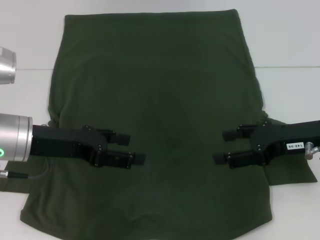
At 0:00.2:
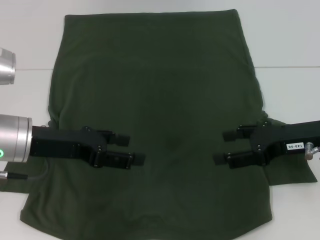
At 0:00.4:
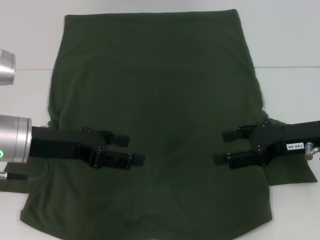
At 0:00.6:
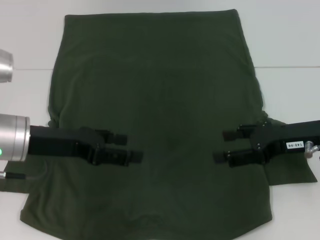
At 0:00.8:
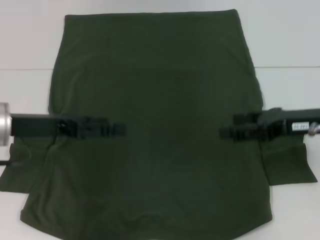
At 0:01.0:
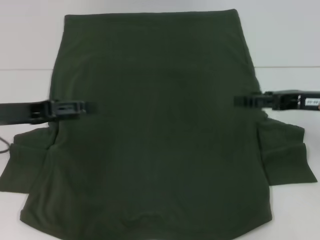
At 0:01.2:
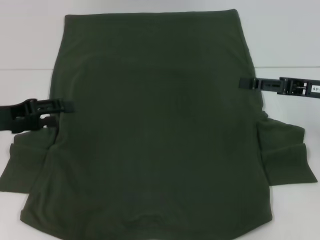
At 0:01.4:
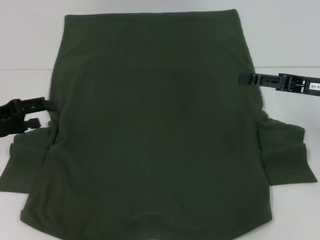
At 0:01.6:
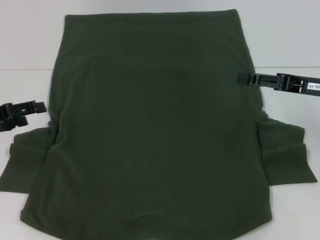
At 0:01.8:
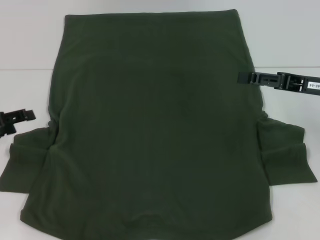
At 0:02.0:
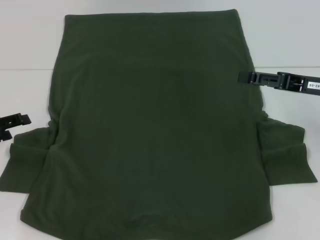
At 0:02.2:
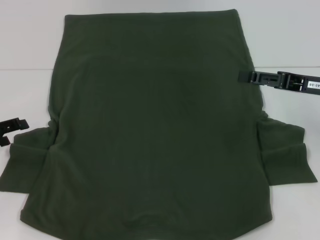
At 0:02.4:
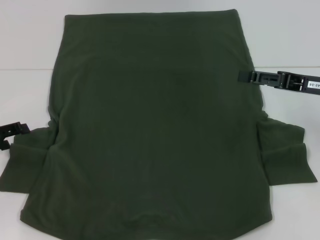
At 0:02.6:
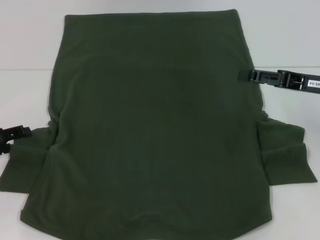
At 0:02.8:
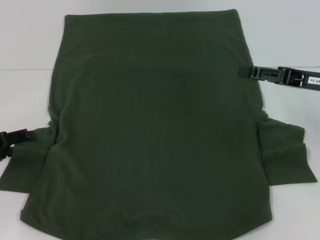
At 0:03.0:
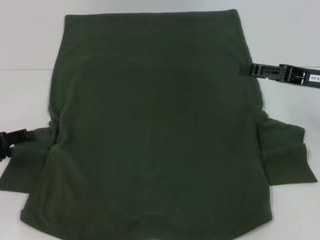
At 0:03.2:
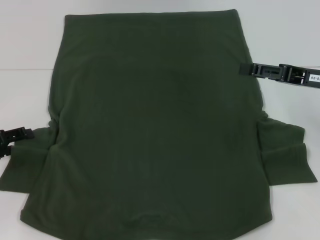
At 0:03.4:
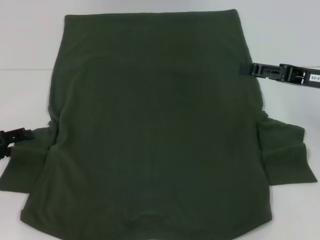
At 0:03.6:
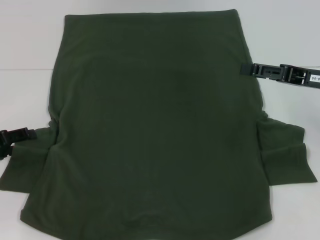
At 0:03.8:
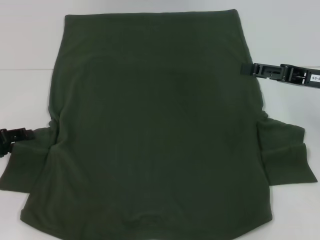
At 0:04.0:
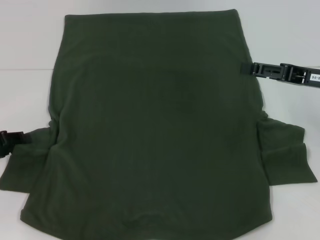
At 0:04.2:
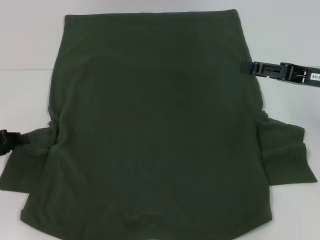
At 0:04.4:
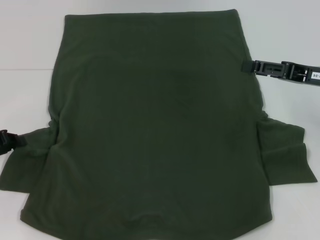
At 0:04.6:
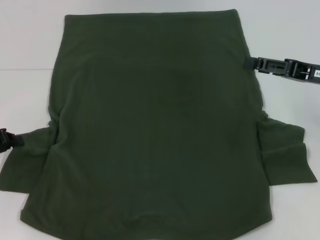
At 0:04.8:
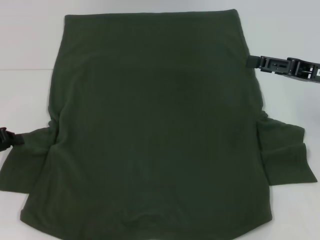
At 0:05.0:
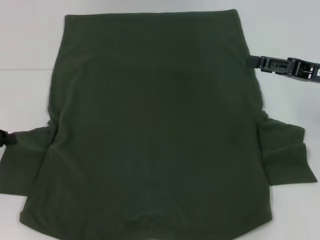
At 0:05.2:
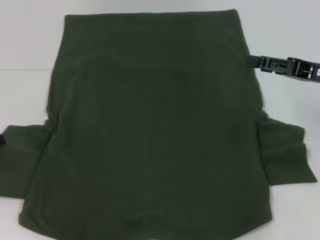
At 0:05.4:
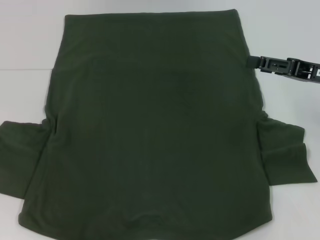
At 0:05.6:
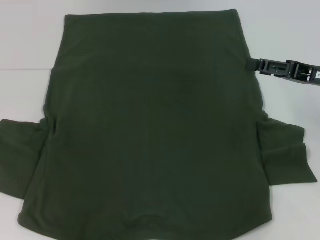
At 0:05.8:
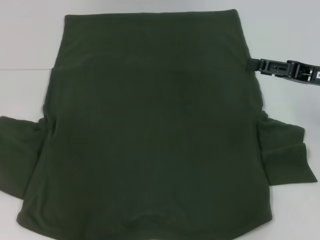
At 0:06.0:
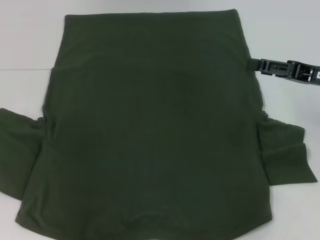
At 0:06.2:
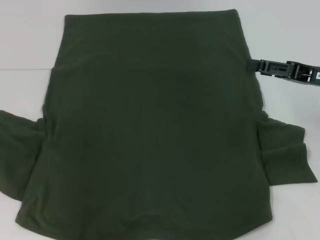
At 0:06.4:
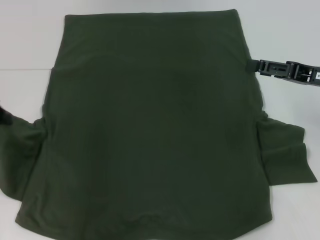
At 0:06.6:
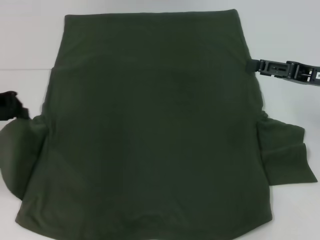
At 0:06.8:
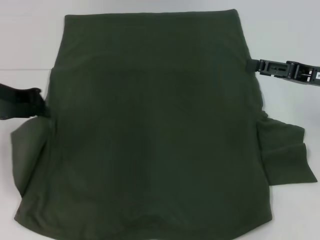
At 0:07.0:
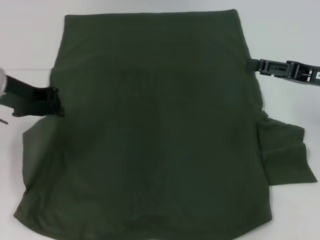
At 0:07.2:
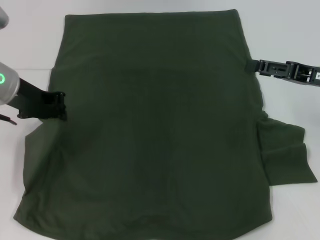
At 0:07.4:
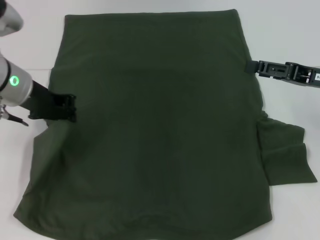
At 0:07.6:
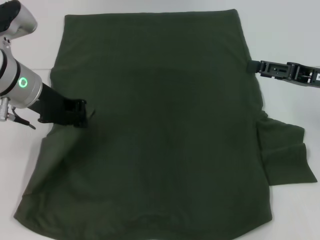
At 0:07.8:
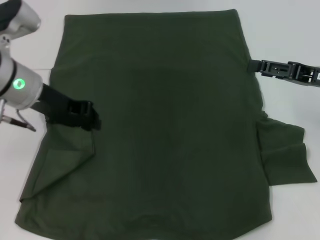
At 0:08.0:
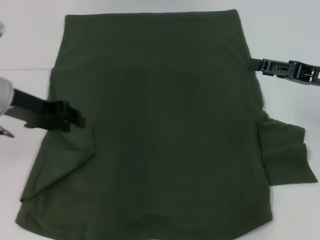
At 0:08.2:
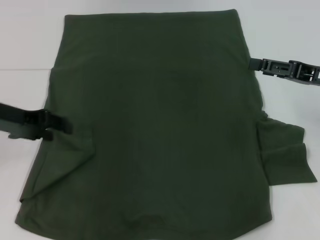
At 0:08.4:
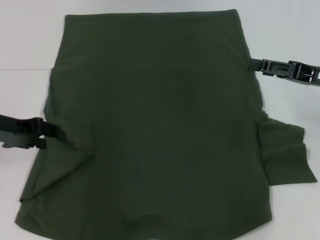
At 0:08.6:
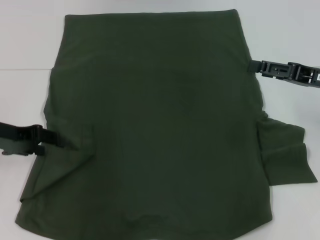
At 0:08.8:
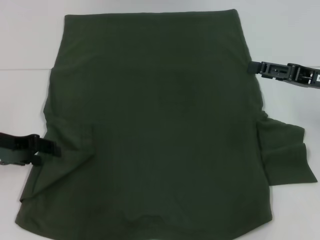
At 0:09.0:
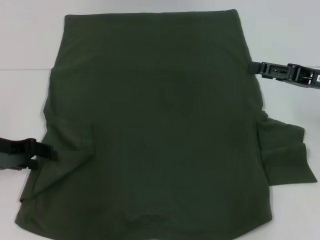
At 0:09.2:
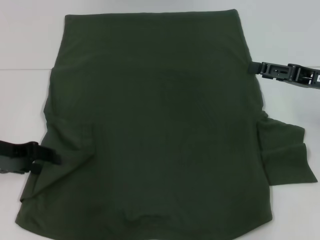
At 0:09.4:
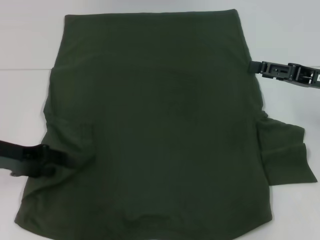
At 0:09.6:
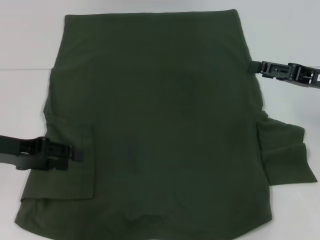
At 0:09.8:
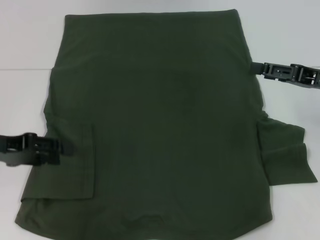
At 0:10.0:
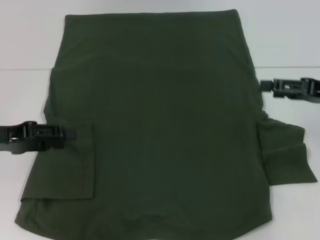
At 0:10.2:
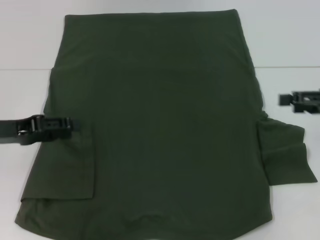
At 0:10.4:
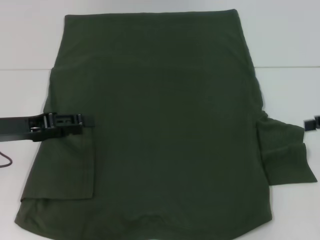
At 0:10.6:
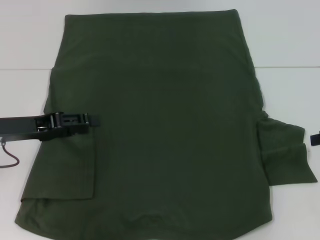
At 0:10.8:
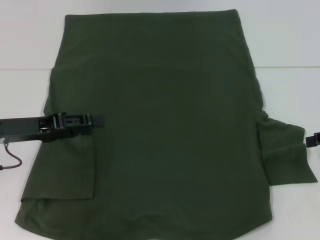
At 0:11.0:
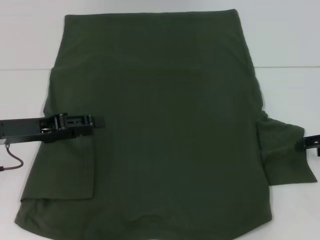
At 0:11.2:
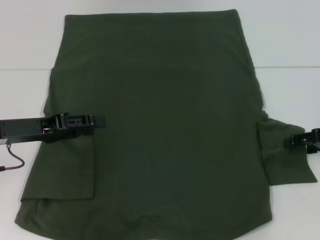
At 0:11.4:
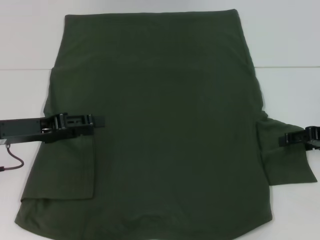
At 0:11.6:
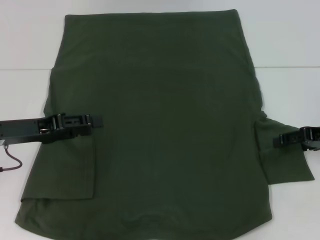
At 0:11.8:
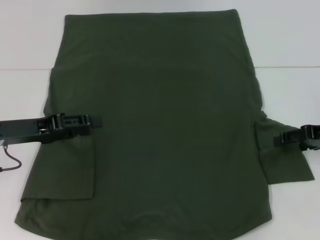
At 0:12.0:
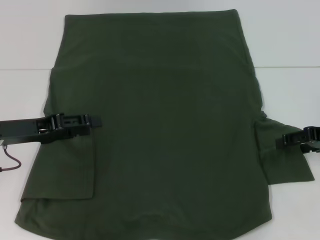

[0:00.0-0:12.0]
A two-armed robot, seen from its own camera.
Step, 0:00.0 to 0:09.8: Fold the bottom left sleeve with your left hand.
0:00.0 to 0:01.6: The left gripper is displaced to the left by approximately 10 cm. The right gripper ends up roughly 5 cm from where it was.
0:01.6 to 0:03.0: There are only small adjustments of the grippers.
0:04.4 to 0:06.0: The left gripper heads upward, covering approximately 5 cm, and closes.
0:06.0 to 0:07.6: The left gripper travels to the right by roughly 15 cm.
0:07.6 to 0:09.0: The left gripper heads to the left, downward and backward, covering roughly 15 cm, and opens.
0:09.0 to 0:10.4: The right gripper travels to the right by about 5 cm.
0:10.4 to 0:12.0: The right gripper ends up roughly 5 cm from where it was.

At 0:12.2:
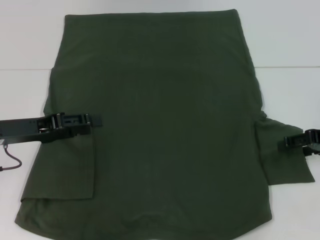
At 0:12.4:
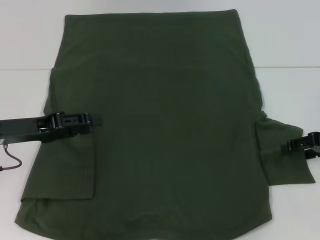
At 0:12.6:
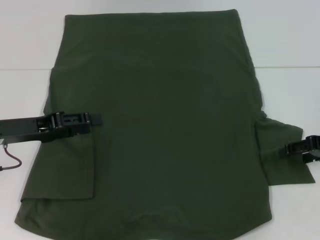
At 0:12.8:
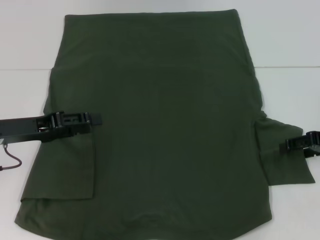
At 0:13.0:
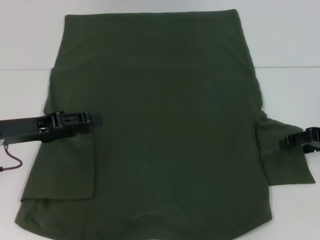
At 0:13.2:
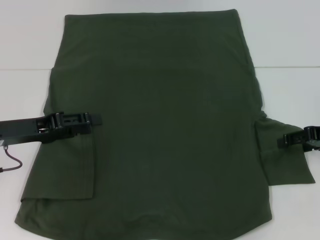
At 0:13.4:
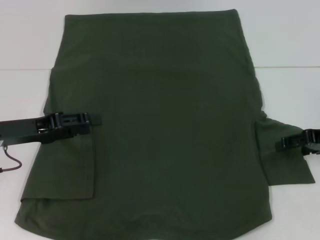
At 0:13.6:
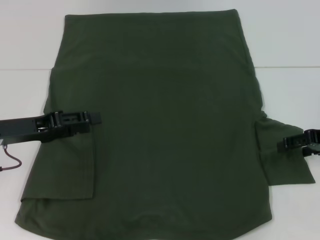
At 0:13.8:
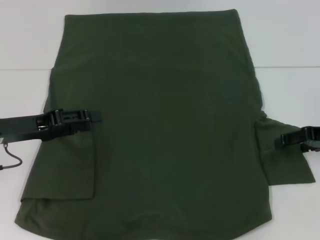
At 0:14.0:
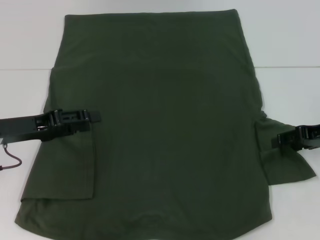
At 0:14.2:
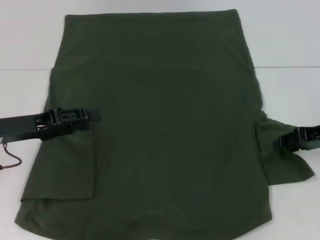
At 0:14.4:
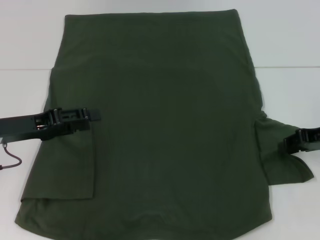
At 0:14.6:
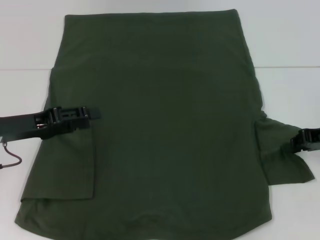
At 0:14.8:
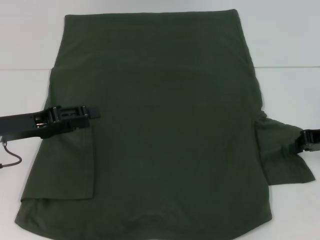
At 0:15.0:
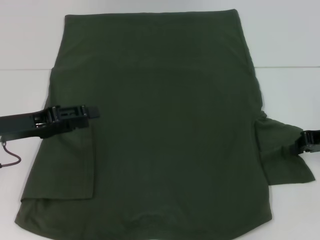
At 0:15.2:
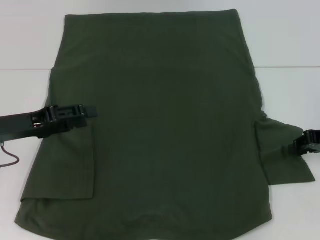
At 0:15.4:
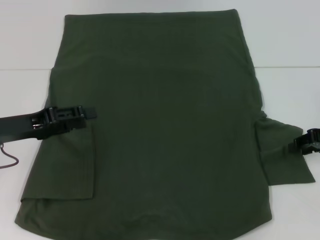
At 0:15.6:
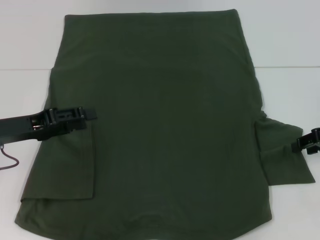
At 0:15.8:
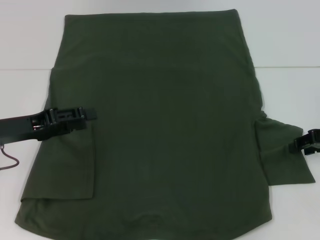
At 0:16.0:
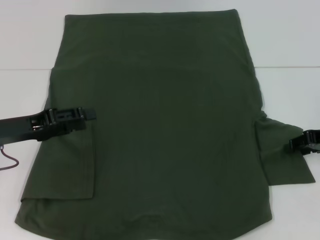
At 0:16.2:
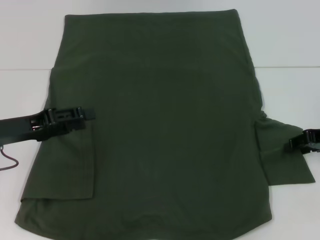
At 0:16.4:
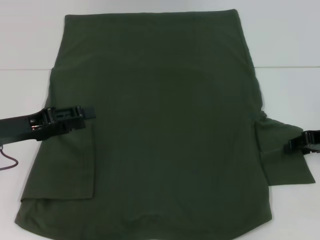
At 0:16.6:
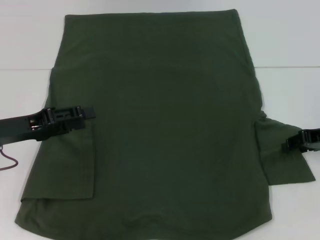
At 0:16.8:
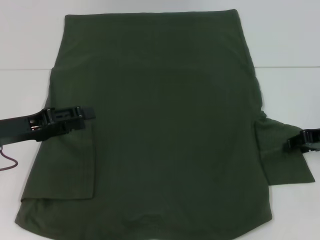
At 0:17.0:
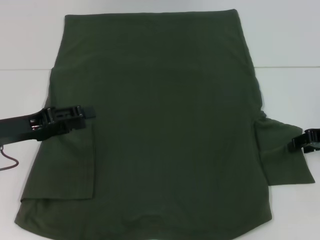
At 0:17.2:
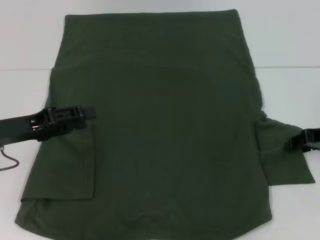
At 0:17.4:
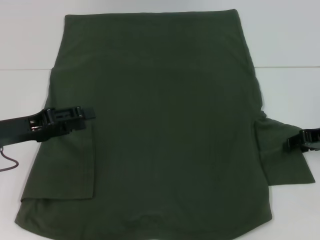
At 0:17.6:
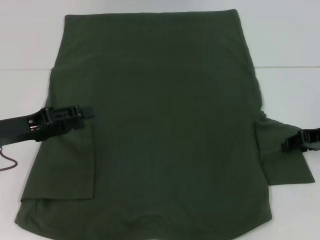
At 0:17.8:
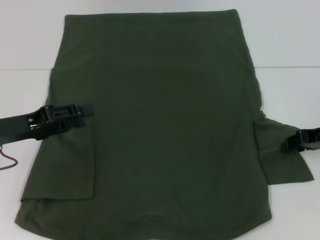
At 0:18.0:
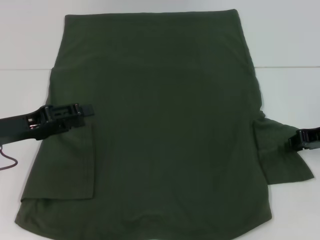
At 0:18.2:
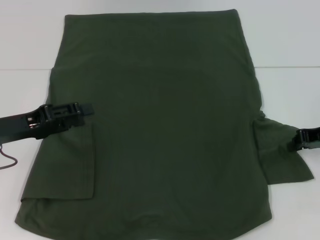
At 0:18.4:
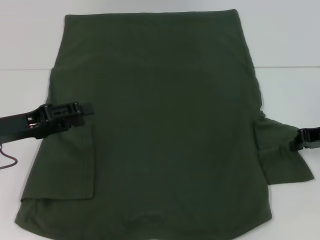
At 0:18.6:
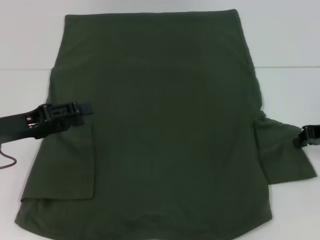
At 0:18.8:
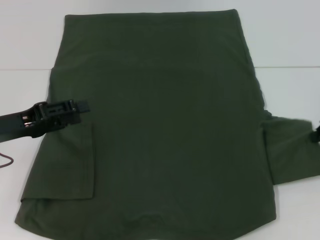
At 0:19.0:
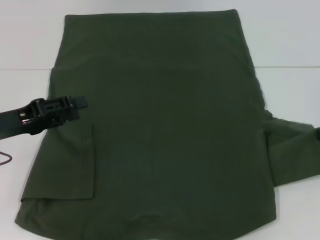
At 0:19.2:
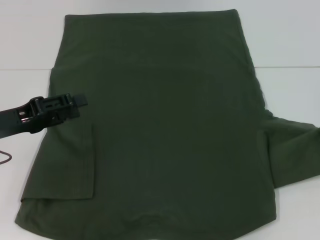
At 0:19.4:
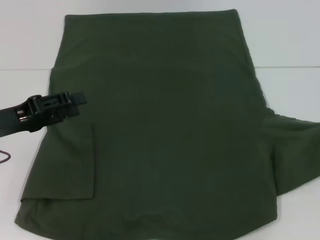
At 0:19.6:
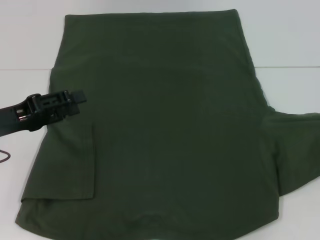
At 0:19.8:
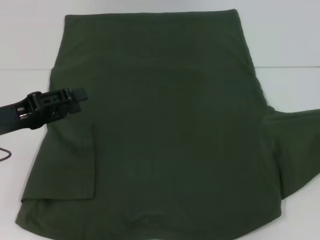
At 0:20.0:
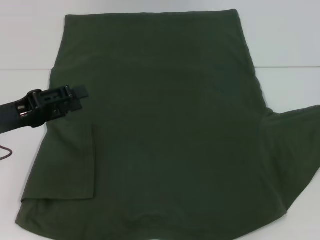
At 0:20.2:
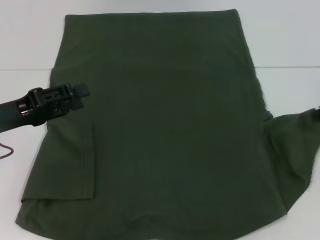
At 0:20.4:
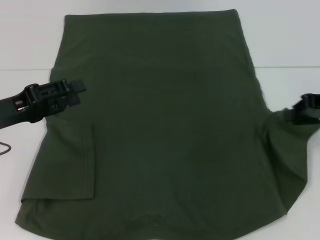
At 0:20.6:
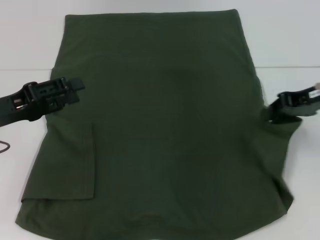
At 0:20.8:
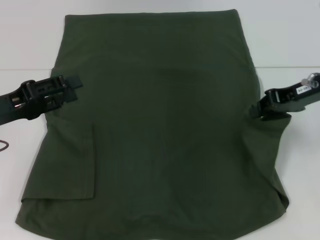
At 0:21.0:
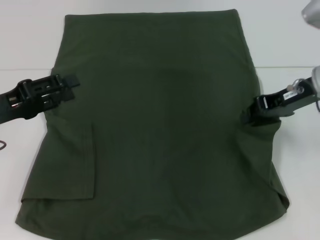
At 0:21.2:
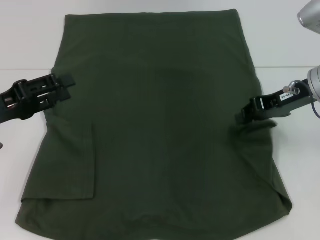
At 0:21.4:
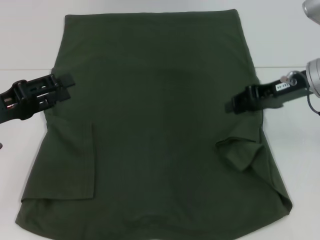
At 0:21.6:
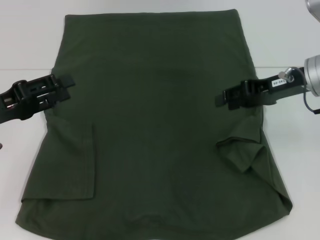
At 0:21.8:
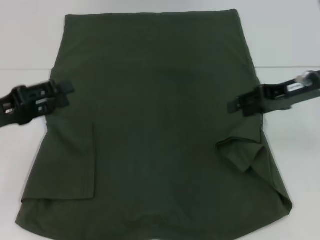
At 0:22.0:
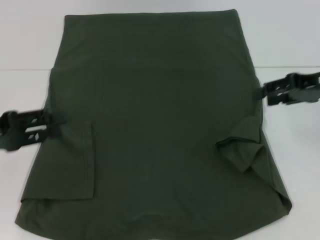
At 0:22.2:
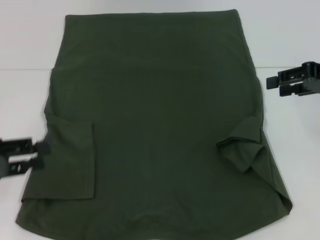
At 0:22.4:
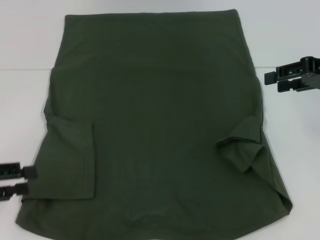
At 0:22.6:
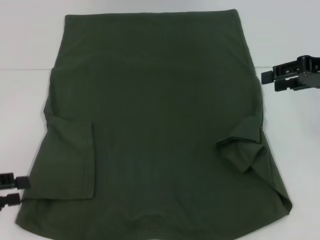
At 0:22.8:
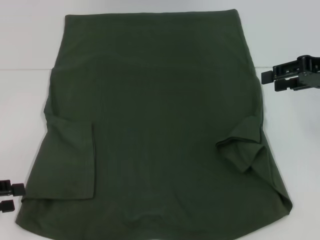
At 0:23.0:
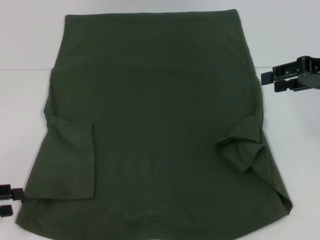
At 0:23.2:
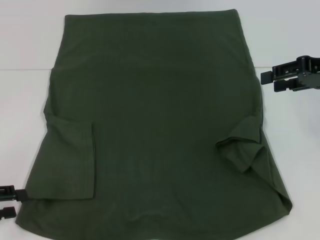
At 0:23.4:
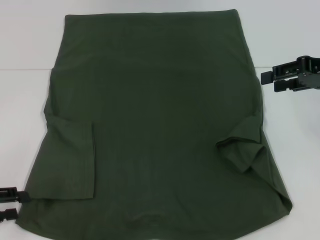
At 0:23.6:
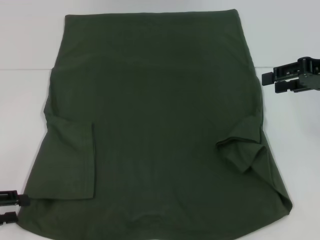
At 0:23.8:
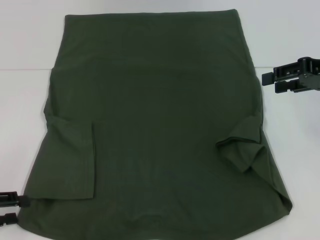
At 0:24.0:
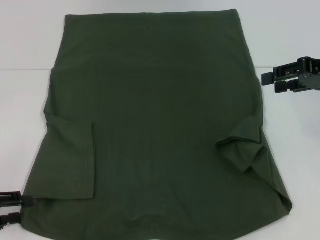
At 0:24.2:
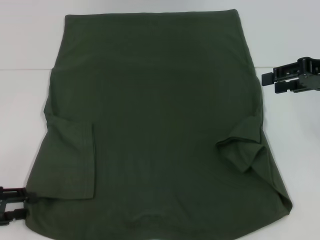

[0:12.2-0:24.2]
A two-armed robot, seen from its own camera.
Step, 0:12.2 to 0:21.8: Fold the bottom right sleeve with your right hand.
0:12.2 to 0:13.8: The two grippers keep their place.
0:13.8 to 0:15.2: The right gripper closes its fingers.
0:16.6 to 0:18.2: The right gripper closes.
0:18.2 to 0:19.8: The right gripper moves to the right, roughly 5 cm.
0:19.8 to 0:21.2: The right gripper heads to the left, covering approximately 15 cm.
0:21.2 to 0:22.6: The left gripper is displaced backward and to the left by approximately 10 cm, while the right gripper moves to the right, approximately 5 cm, and opens its fingers.
0:22.6 to 0:24.2: There are only small adjustments of the grippers.
